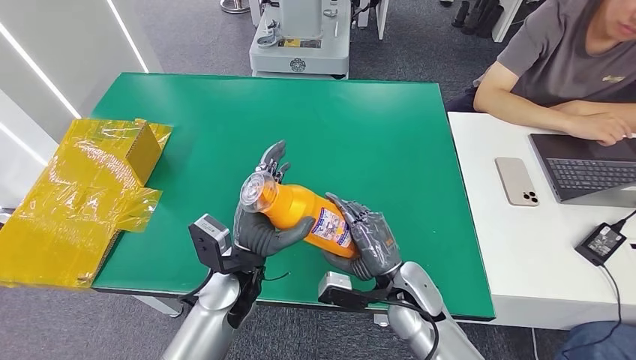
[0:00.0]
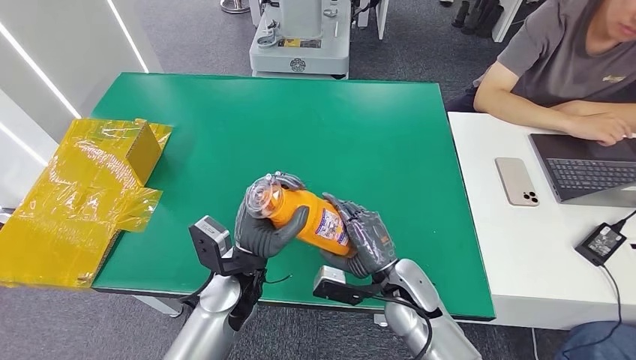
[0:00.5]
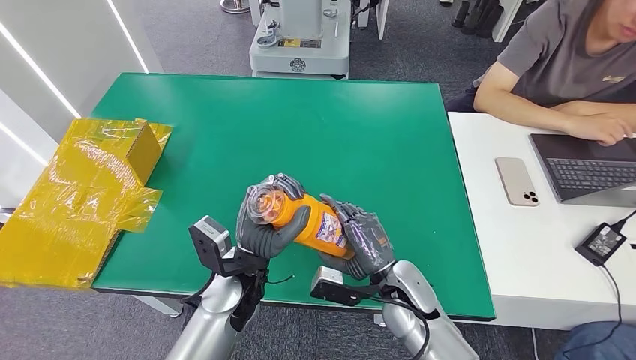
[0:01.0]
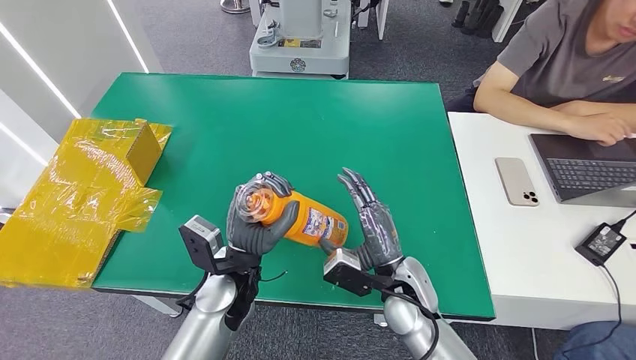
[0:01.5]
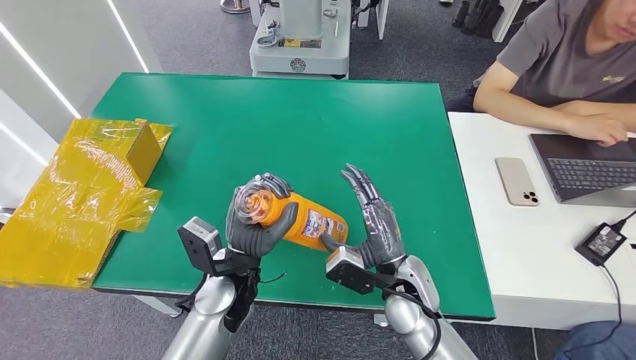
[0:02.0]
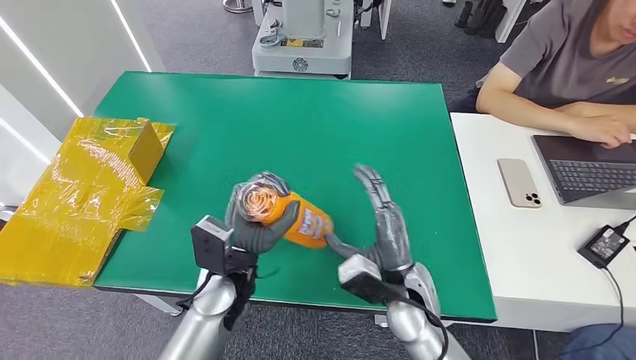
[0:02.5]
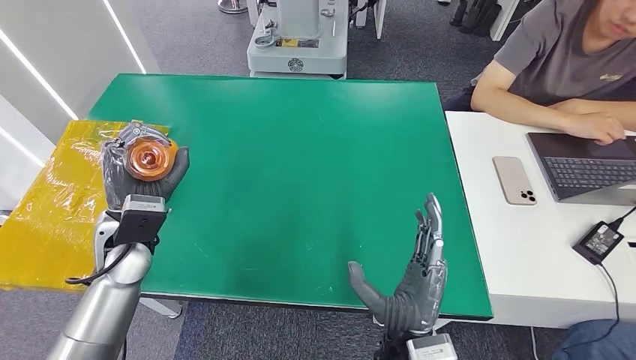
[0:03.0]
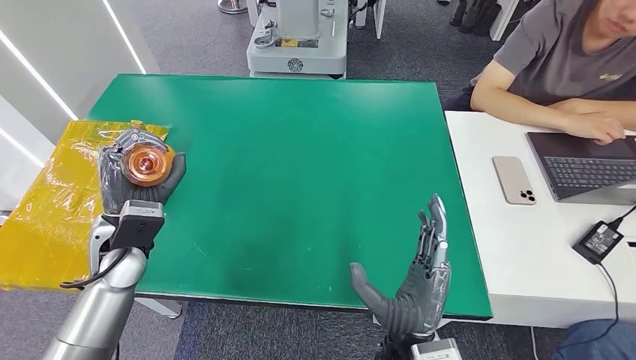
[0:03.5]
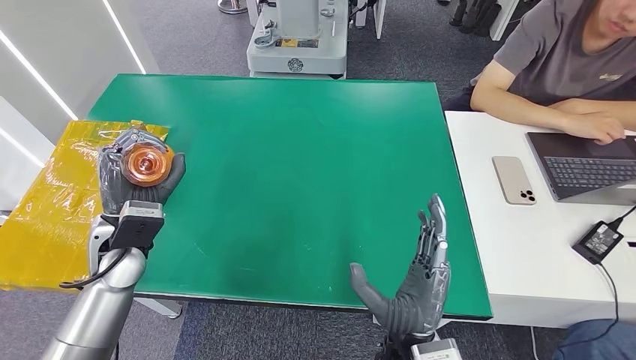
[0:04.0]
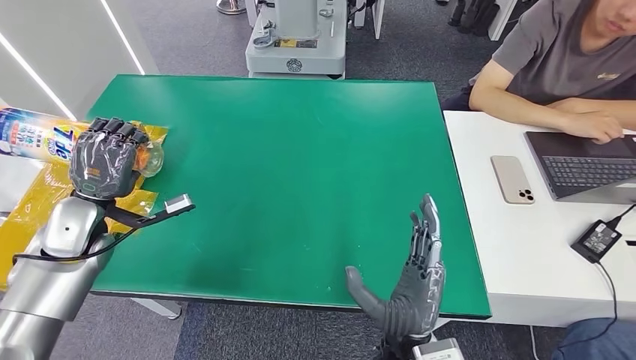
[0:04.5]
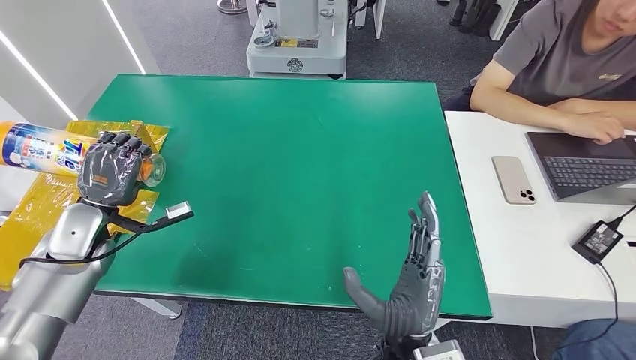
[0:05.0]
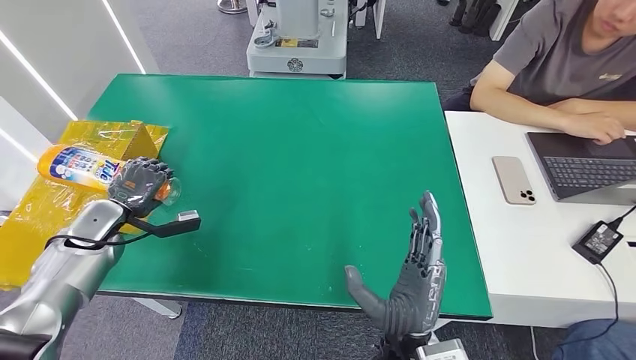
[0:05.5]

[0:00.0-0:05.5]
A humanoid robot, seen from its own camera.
Step, 0:00.0 to 0:05.5: Turn the bottle to the front side.
0:00.0 to 0:02.0: There are only small adjustments of the hands.
0:03.5 to 0:05.5: The left hand heads to the left, downward and forward, covering roughly 15 cm.

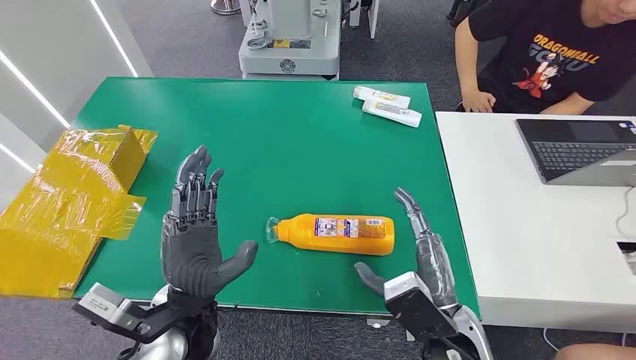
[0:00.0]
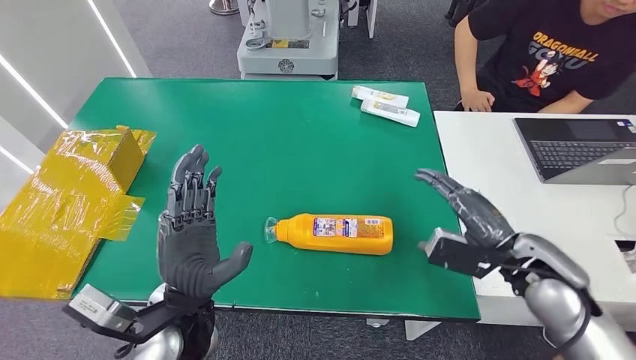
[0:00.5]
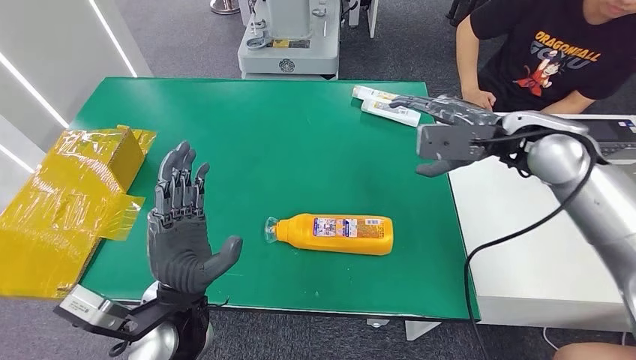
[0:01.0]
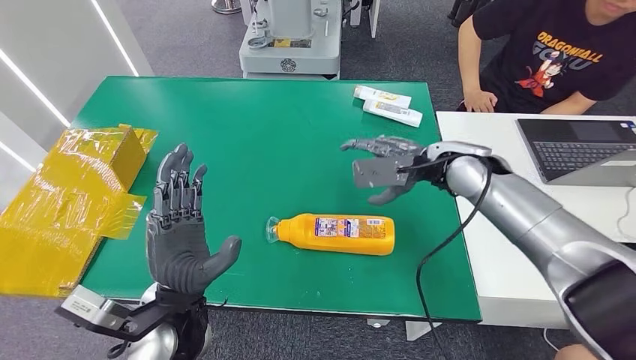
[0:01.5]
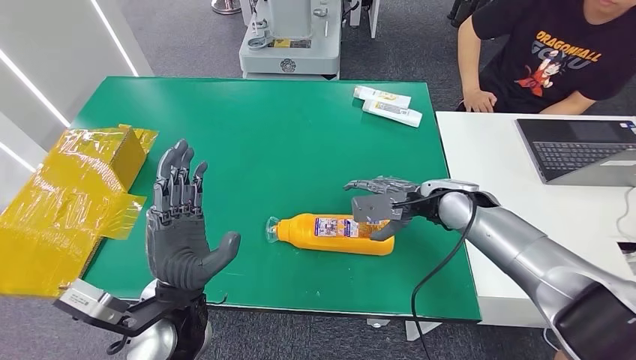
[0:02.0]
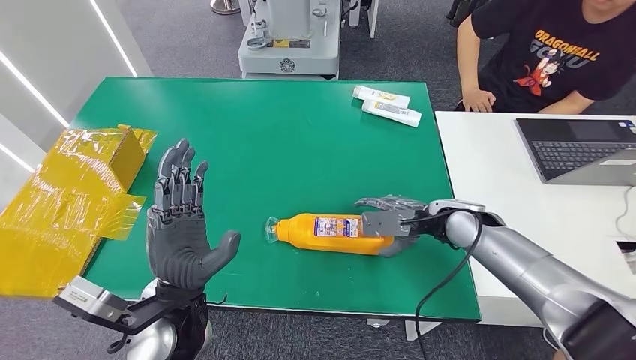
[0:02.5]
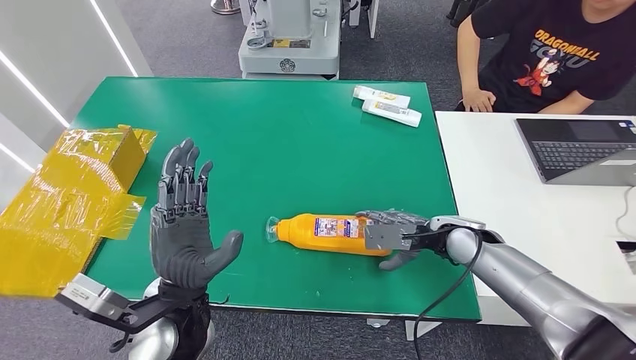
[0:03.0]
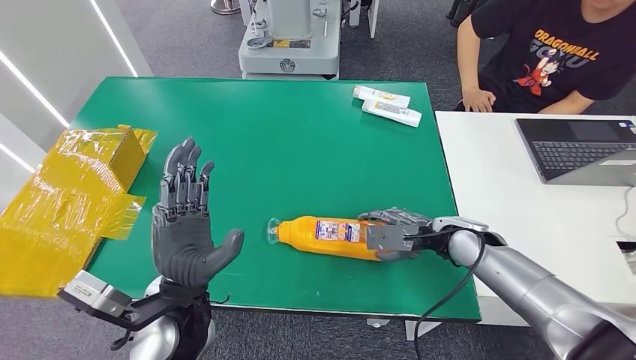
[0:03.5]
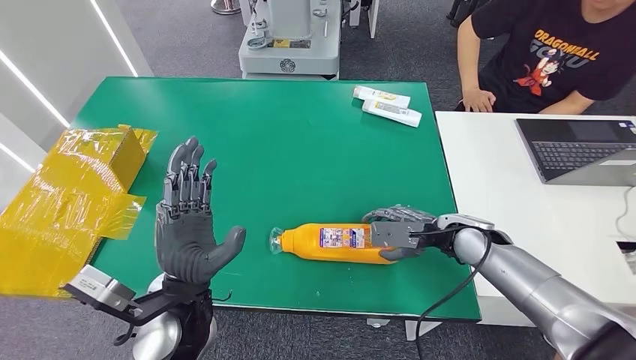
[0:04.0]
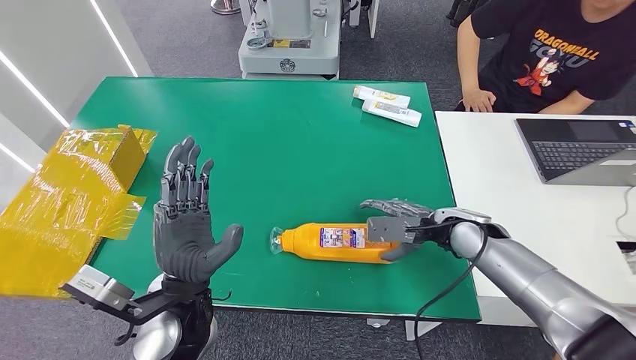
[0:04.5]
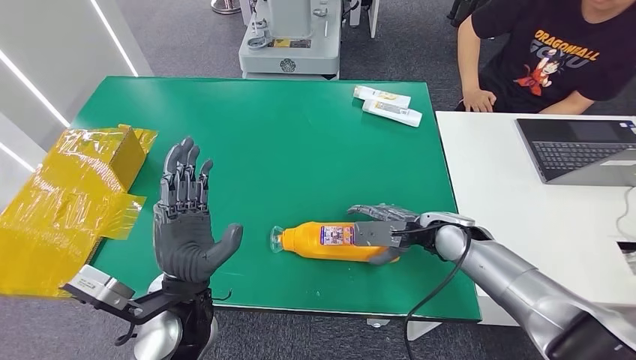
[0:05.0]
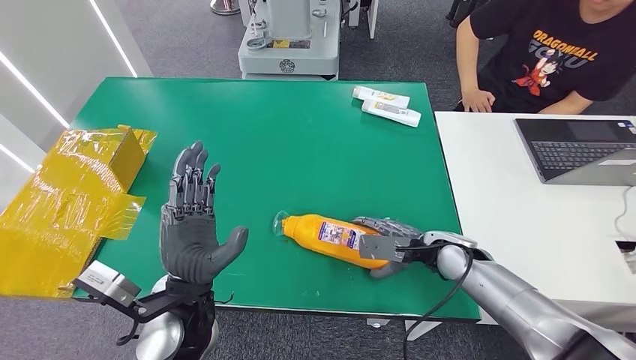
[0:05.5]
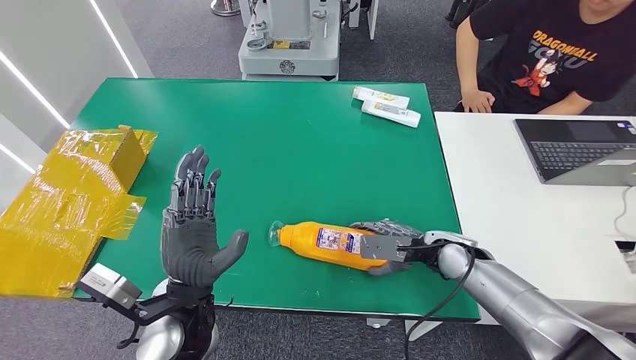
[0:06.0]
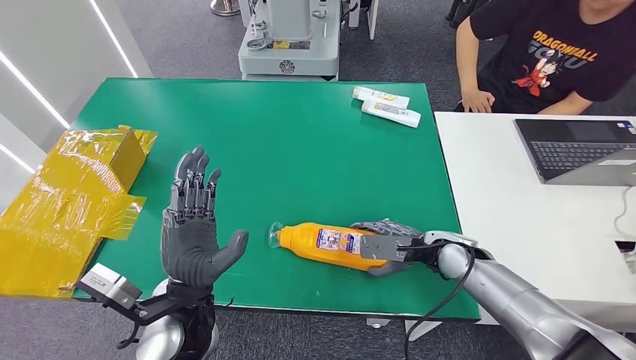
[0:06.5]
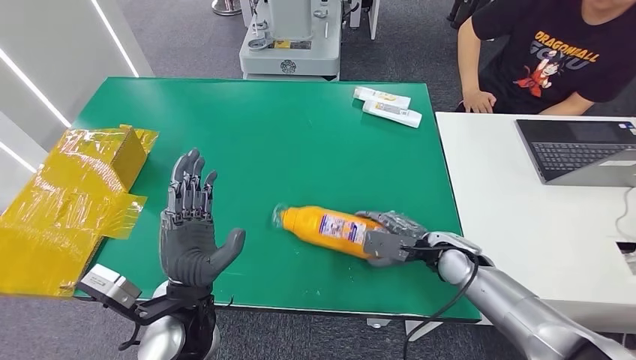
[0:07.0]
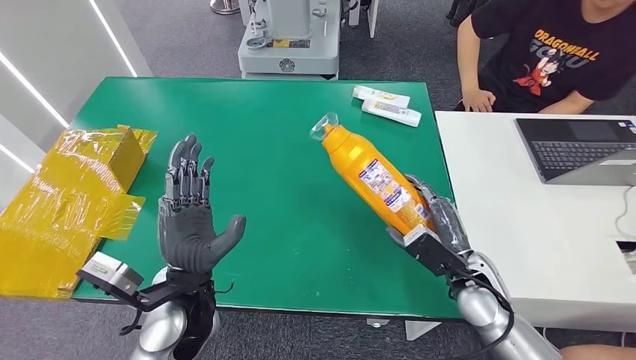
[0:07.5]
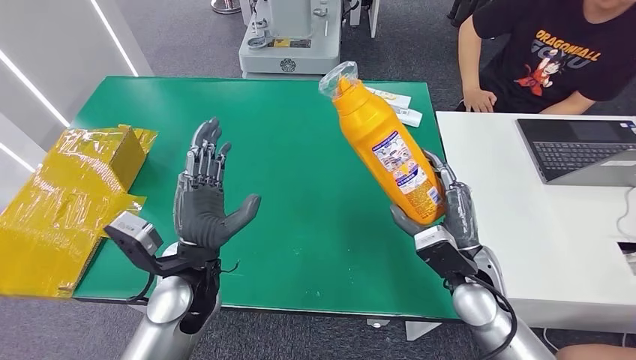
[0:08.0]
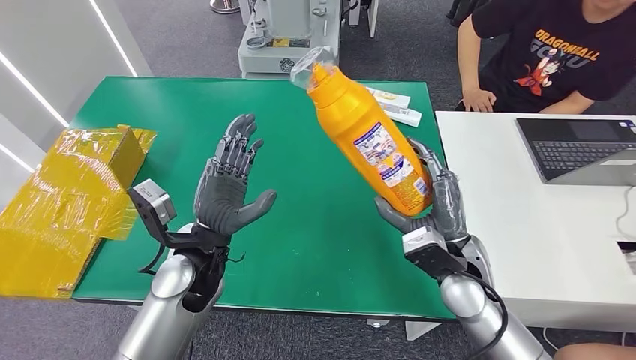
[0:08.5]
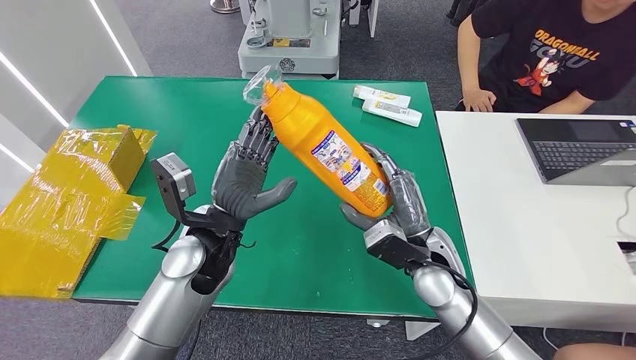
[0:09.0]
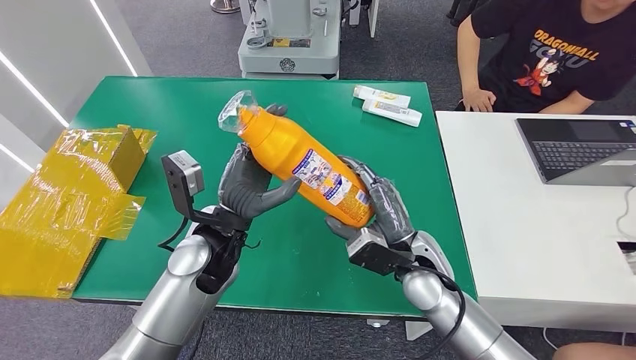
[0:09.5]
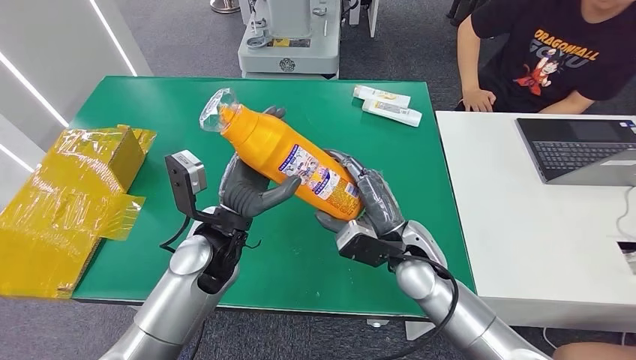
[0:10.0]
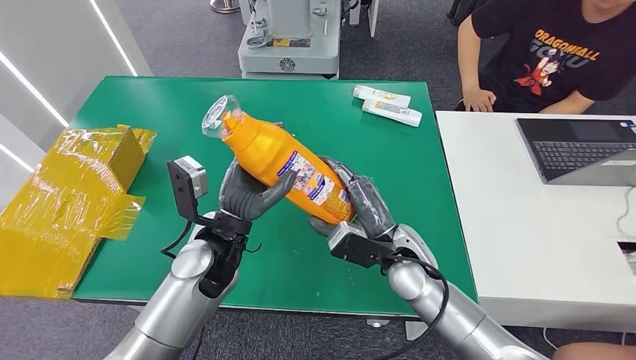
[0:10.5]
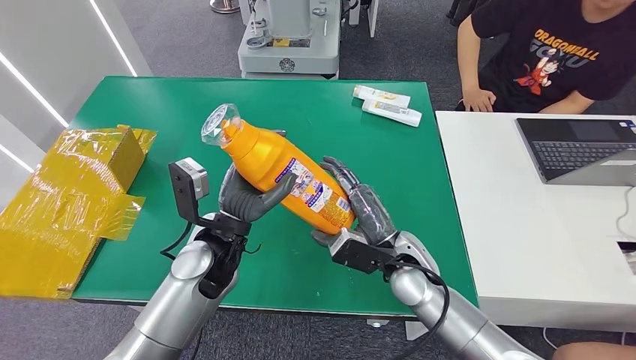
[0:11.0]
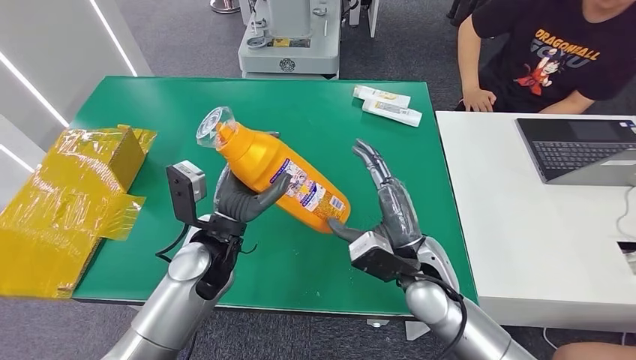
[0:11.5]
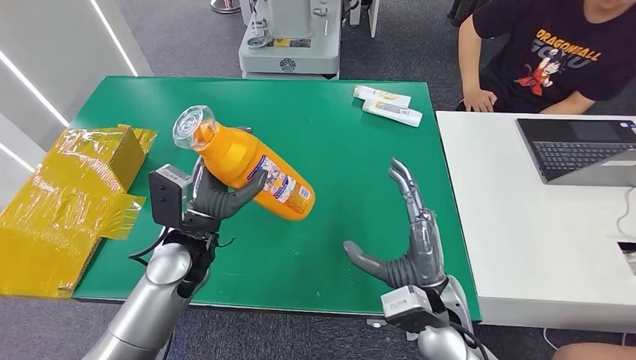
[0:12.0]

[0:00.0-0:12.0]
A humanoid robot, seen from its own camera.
Step, 0:00.0 to 0:07.5: Pick up the bottle from the table.
0:02.0 to 0:04.0: The right hand travels downward by about 5 cm.
0:04.0 to 0:06.0: The hands make only small movements.
0:10.0 to 0:12.0: The right hand is displaced backward by about 10 cm. Meanwhile the left hand goes about 5 cm to the left.

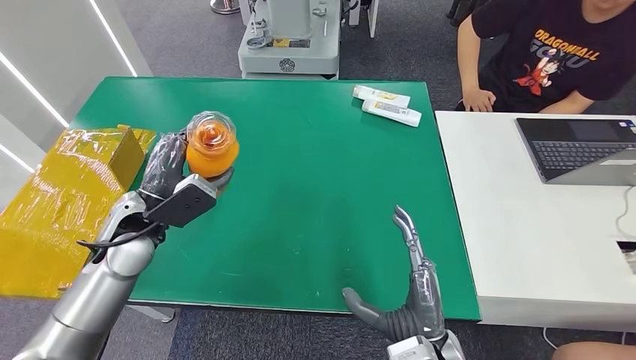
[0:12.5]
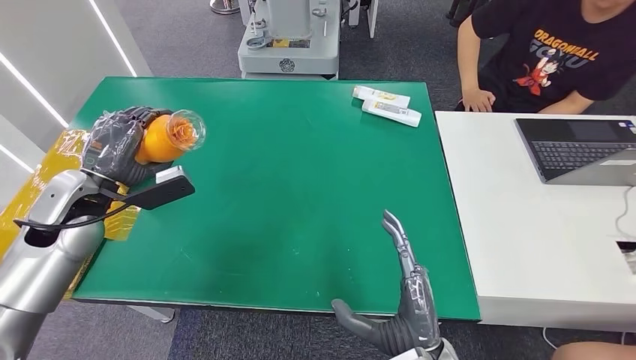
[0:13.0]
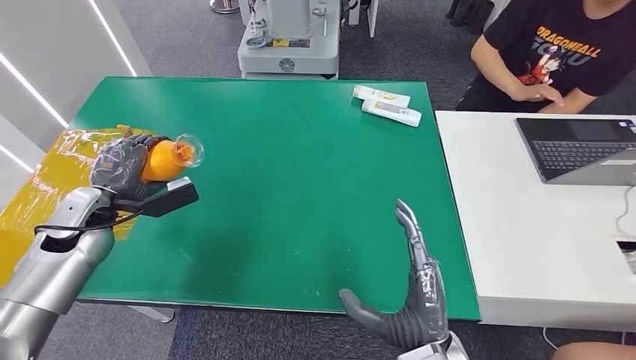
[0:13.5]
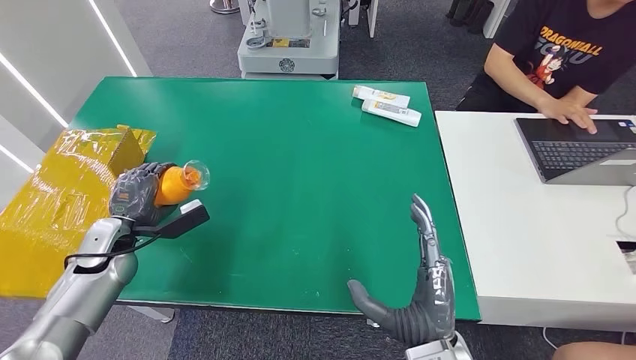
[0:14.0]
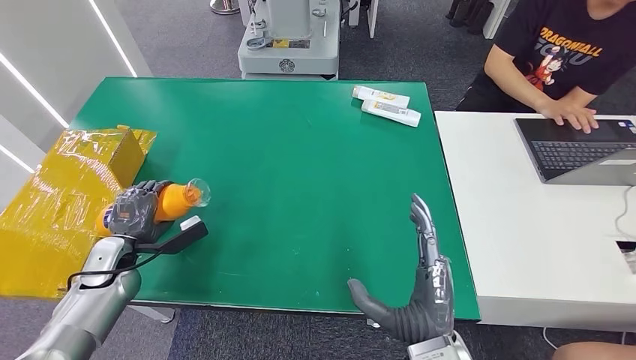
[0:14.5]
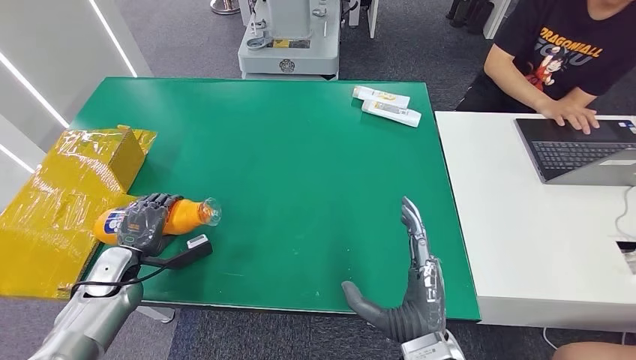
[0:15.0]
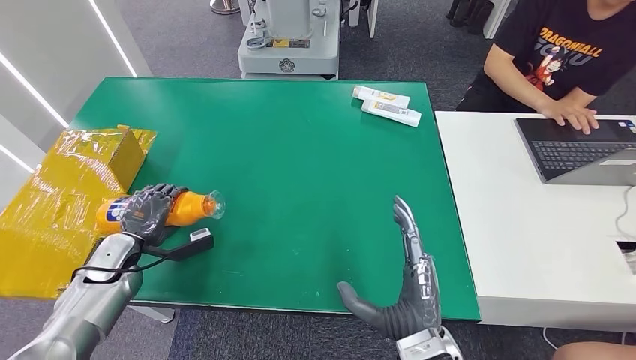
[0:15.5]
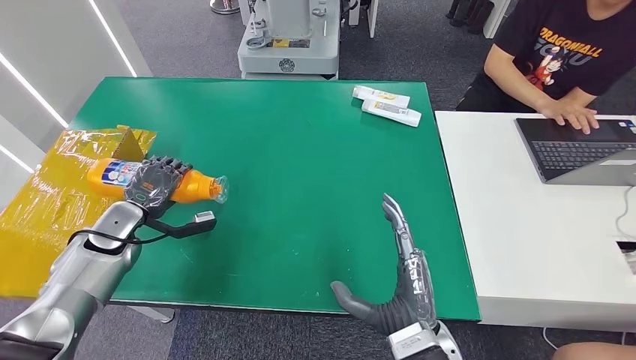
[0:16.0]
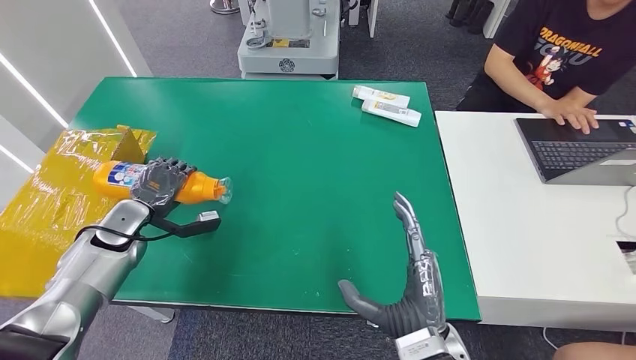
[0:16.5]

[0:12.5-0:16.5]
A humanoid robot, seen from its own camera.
0:12.5 to 0:14.5: The left hand is displaced downward and to the left by roughly 20 cm.
0:14.5 to 0:16.5: The left hand is displaced forward by some 5 cm.
